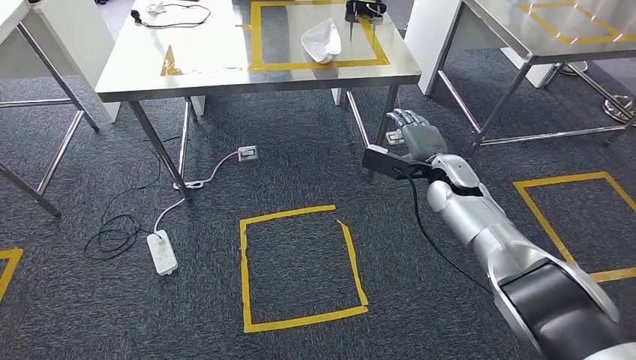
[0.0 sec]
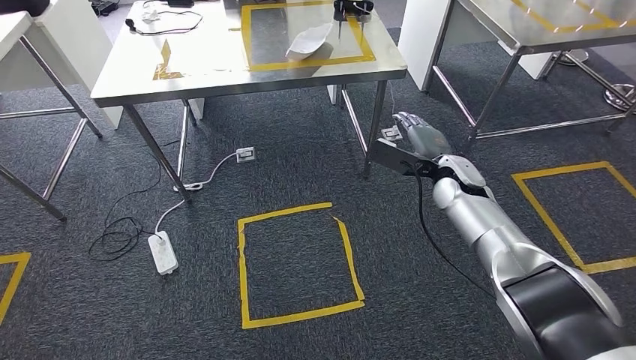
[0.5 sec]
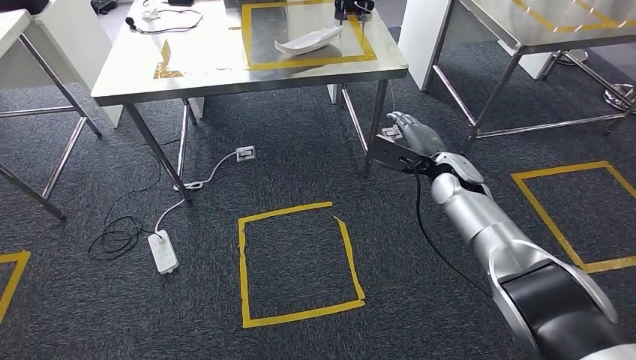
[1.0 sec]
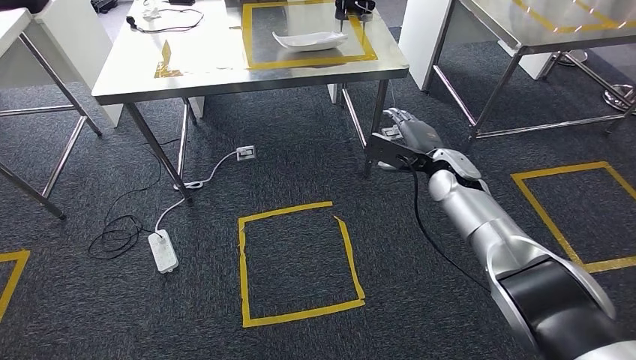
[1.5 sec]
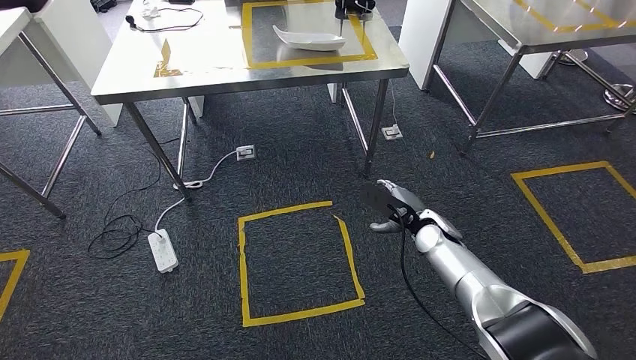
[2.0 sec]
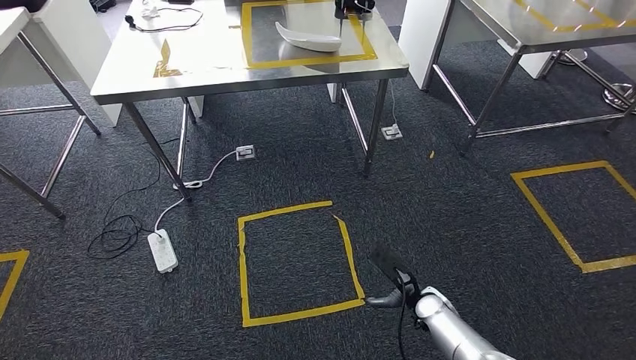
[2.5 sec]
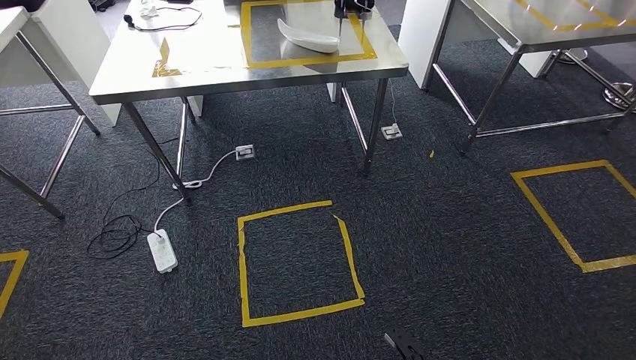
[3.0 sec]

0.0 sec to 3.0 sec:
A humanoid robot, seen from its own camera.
Step, 0.0 sec to 3.0 sec: Move to the initial position at the workbench.
1.5 sec to 3.0 sec: The right hand is displaced backward and downward by some 40 cm; the left hand goes about 10 cm backward and to the left.
